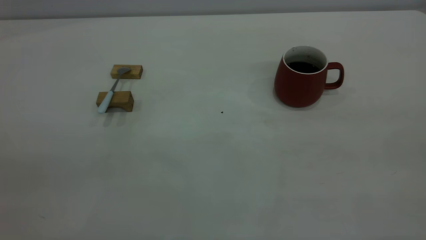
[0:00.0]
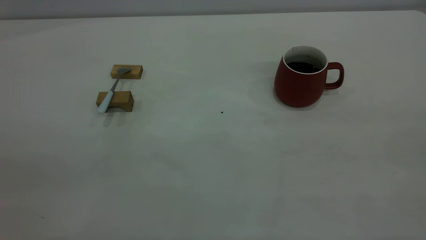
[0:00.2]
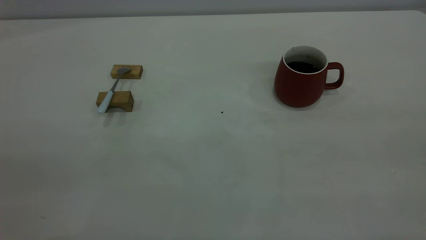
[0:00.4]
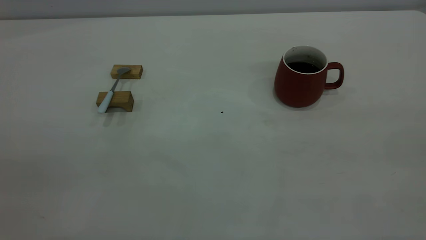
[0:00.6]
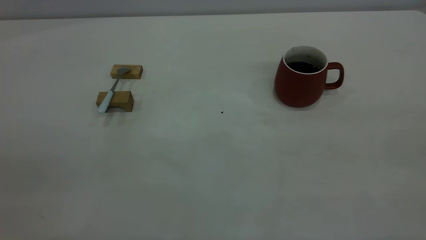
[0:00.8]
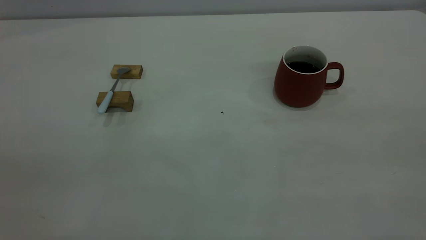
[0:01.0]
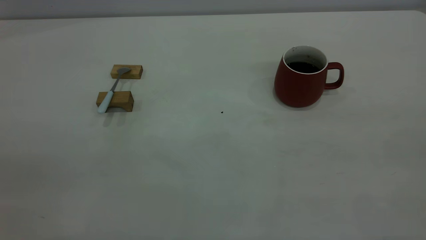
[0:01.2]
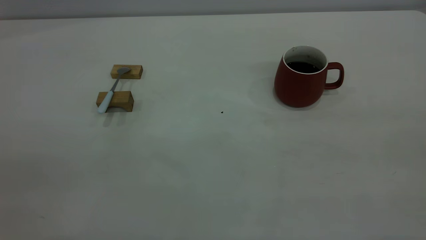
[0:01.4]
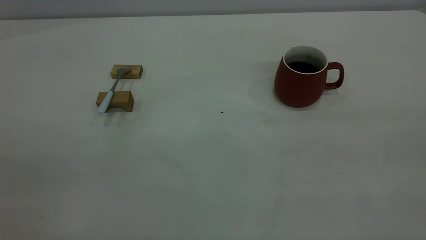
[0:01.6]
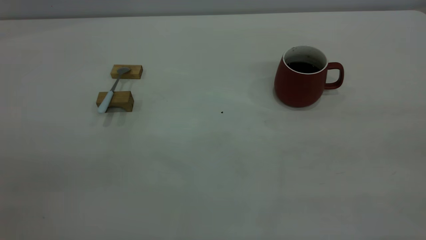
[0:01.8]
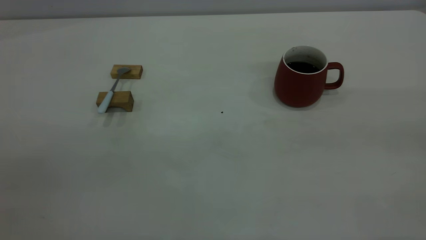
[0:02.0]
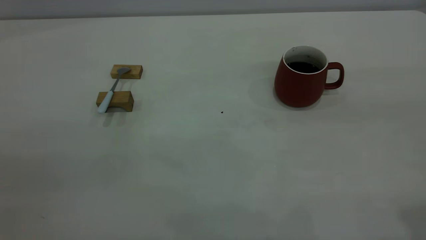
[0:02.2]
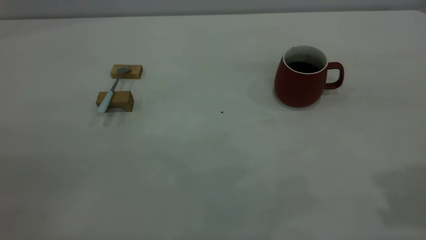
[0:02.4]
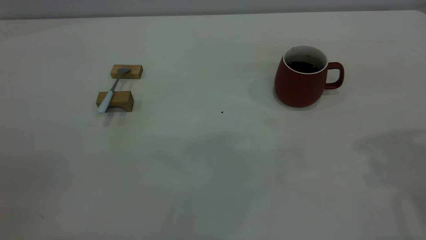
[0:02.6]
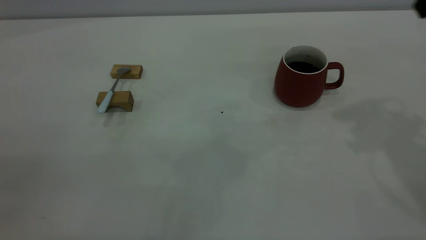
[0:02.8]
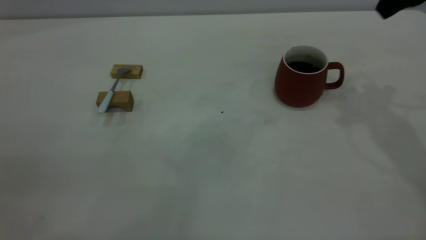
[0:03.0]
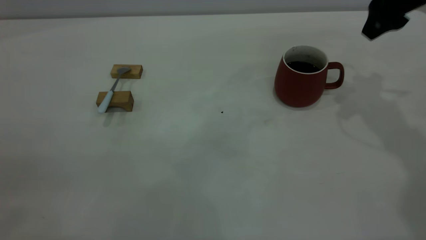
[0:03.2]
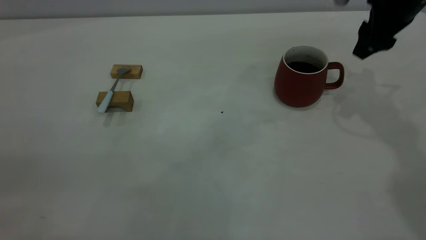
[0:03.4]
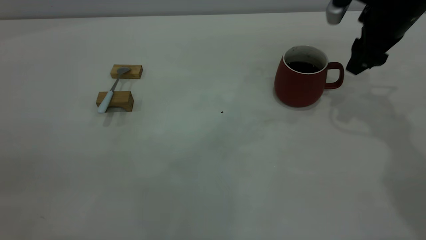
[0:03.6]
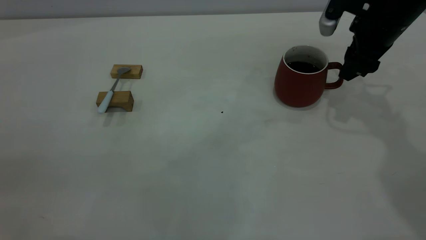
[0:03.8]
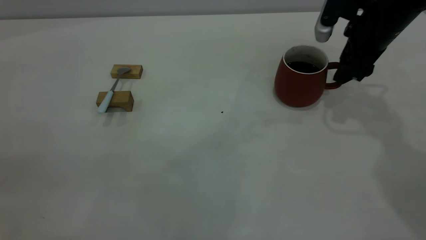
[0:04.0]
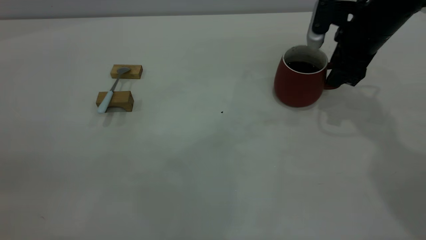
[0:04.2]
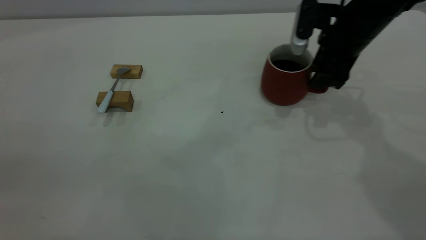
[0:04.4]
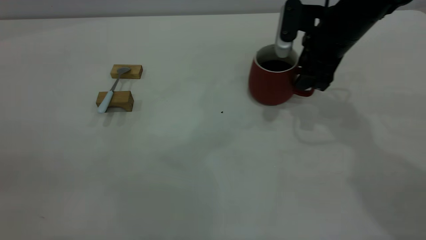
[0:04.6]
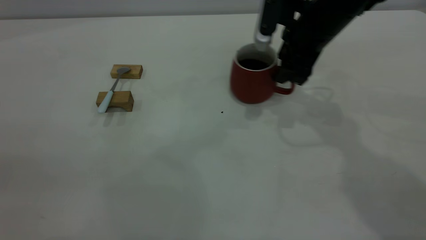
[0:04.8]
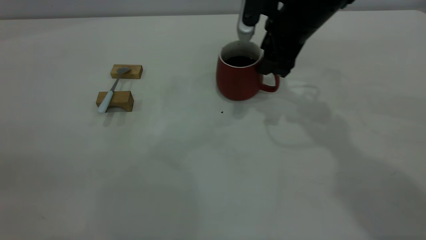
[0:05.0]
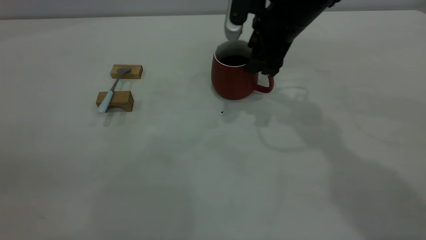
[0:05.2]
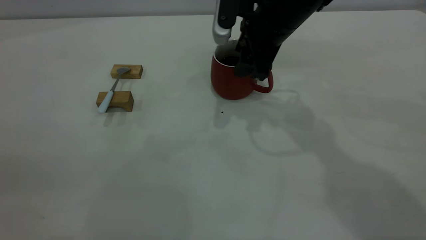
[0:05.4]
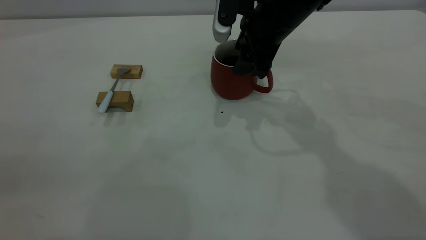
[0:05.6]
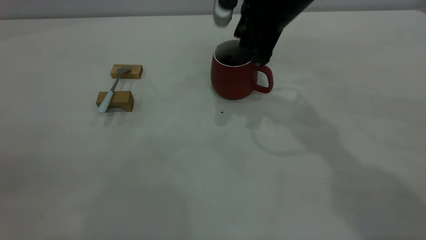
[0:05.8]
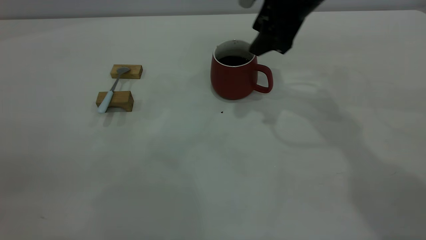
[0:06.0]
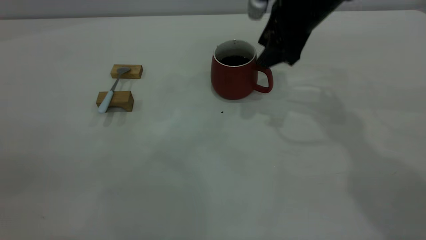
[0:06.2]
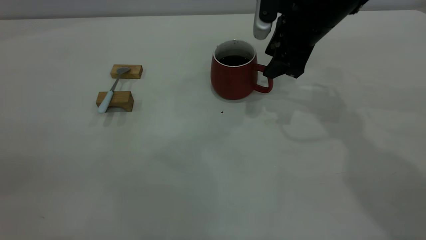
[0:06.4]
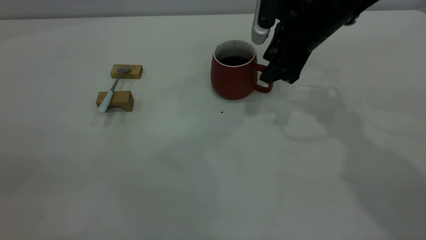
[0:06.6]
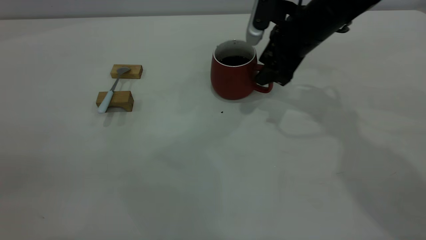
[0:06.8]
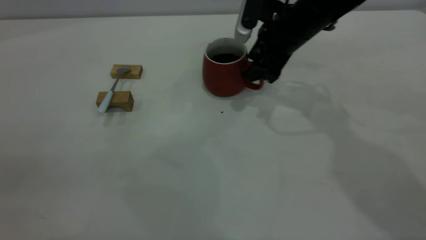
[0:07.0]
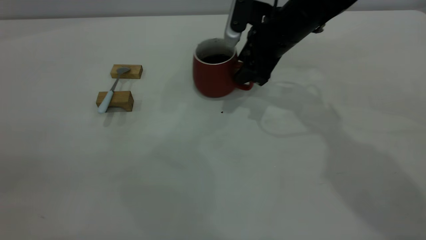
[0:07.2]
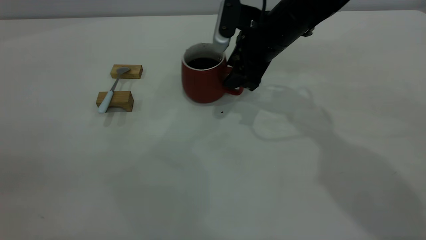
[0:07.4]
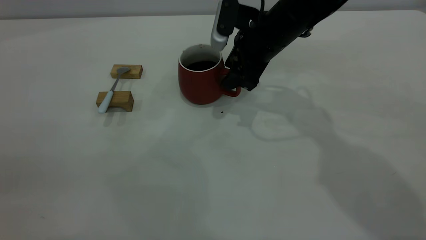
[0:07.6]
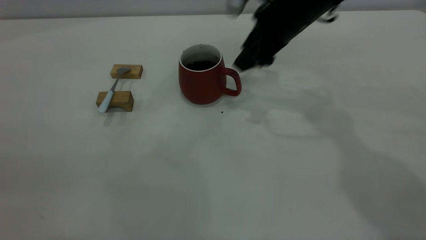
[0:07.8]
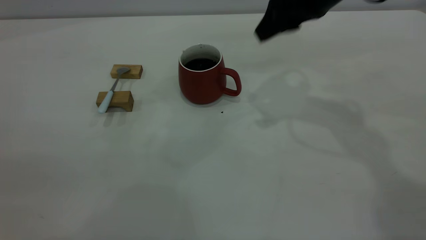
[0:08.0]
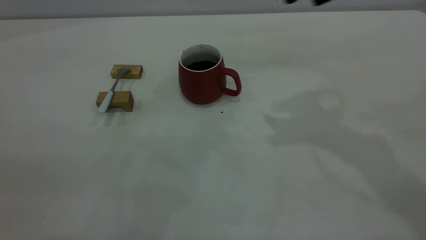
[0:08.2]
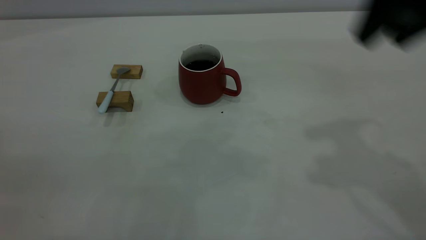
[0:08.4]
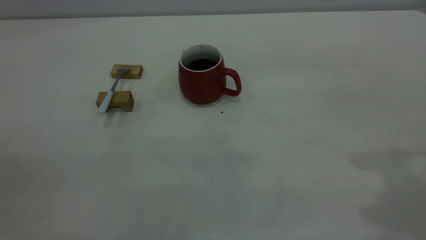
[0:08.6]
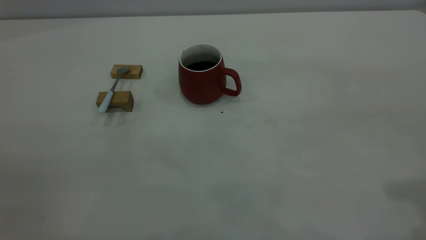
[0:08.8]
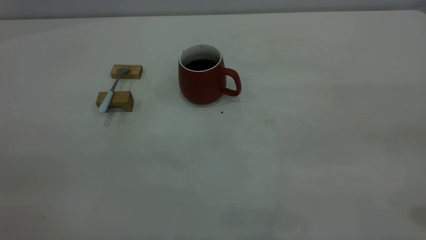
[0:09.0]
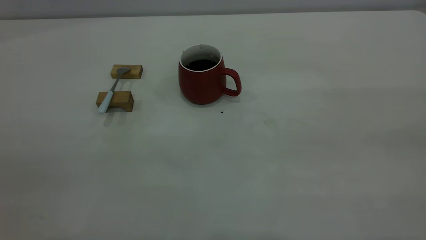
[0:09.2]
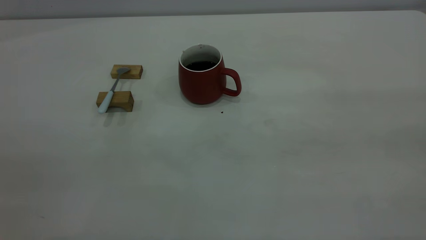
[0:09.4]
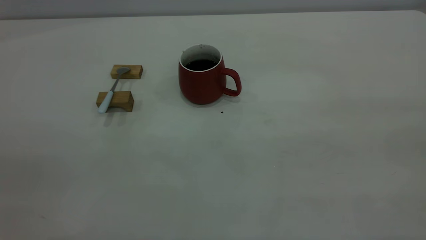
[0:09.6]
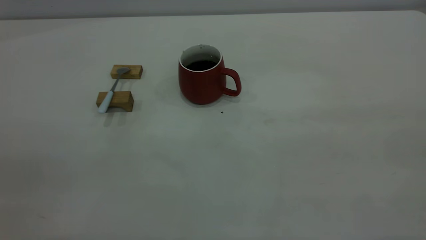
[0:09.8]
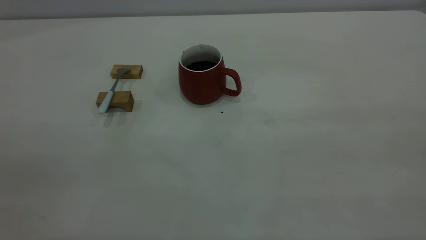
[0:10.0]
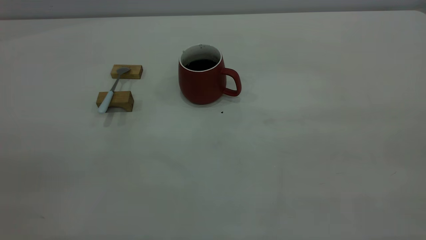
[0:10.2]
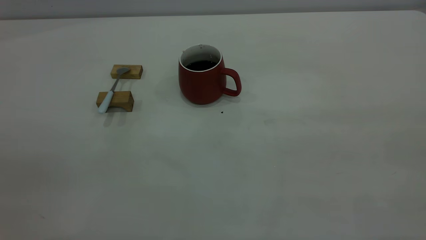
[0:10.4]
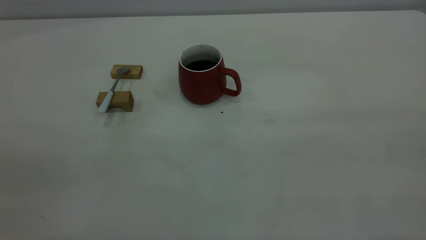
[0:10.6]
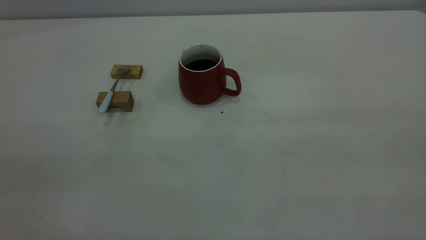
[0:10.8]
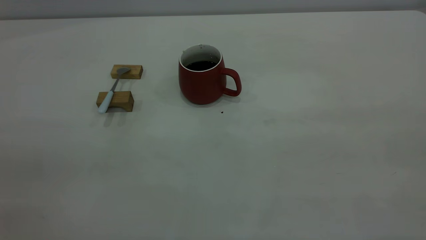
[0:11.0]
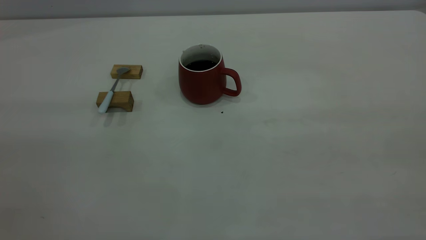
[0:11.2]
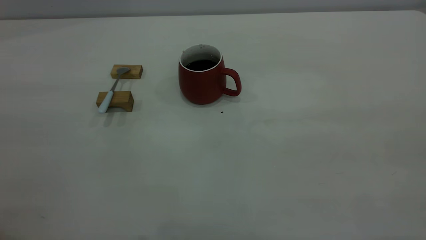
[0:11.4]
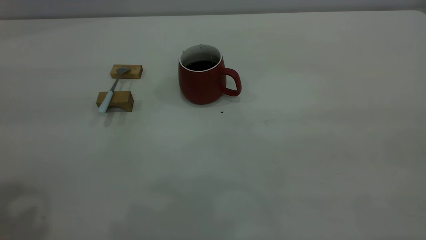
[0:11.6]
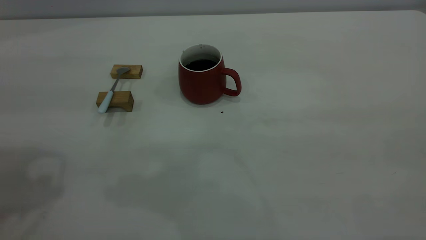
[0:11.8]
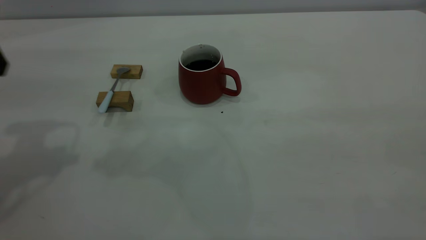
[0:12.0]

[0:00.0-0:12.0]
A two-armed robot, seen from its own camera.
Step, 0:00.0 to 0:07.8: Move the cup with coffee to the center of view.
0:00.0 to 0:01.6: Neither gripper changes place.
0:03.0 to 0:04.4: The right gripper goes some 15 cm downward and to the left, and closes up.
0:04.4 to 0:06.0: The right gripper shifts about 10 cm to the left and upward.
0:06.0 to 0:07.6: The right gripper goes approximately 5 cm downward.
0:07.6 to 0:09.0: The right gripper travels backward, upward and to the right by approximately 40 cm.

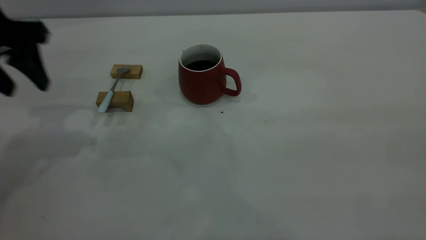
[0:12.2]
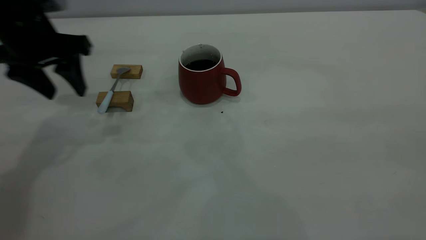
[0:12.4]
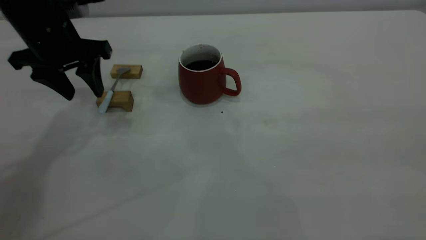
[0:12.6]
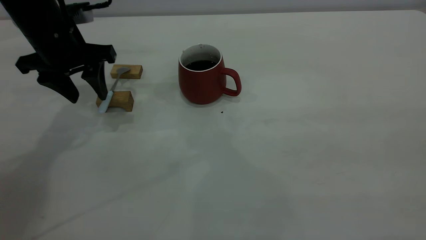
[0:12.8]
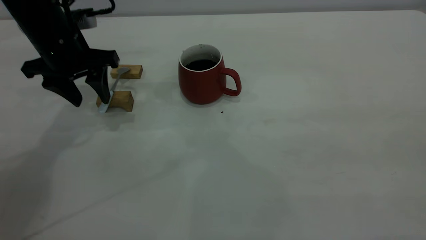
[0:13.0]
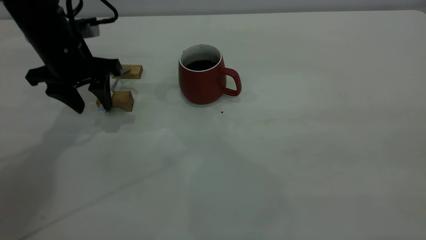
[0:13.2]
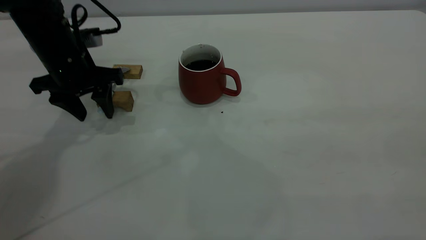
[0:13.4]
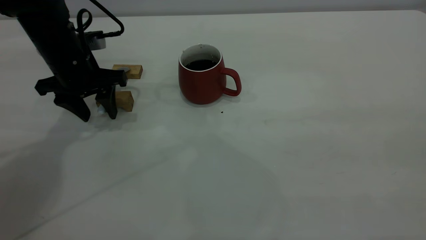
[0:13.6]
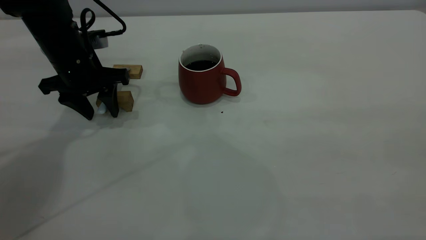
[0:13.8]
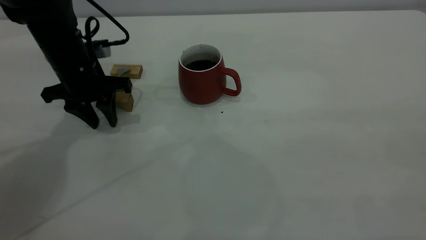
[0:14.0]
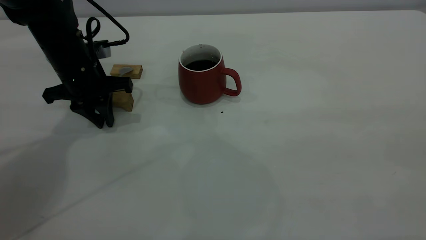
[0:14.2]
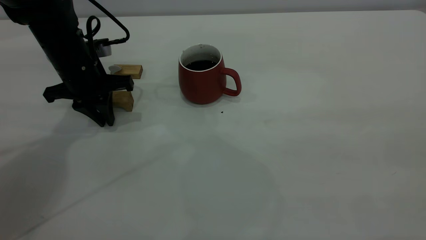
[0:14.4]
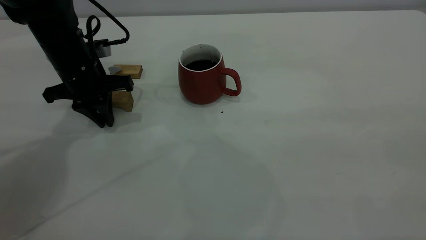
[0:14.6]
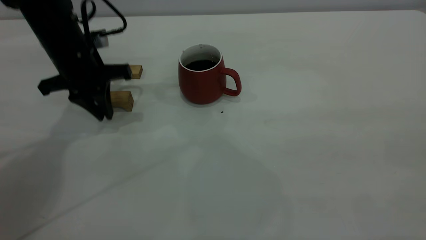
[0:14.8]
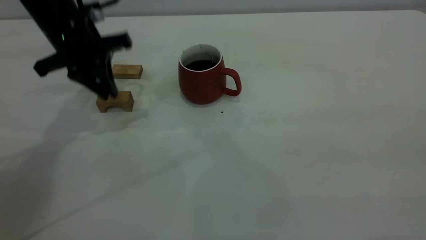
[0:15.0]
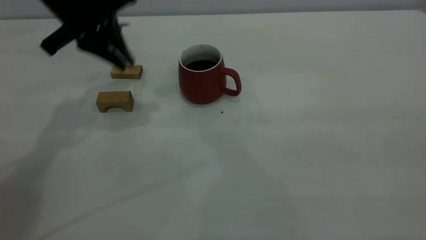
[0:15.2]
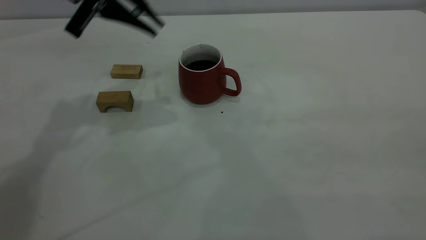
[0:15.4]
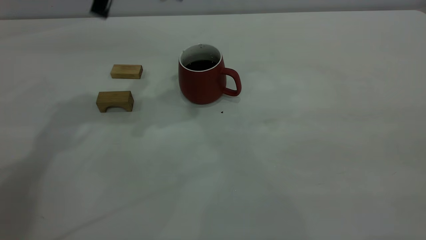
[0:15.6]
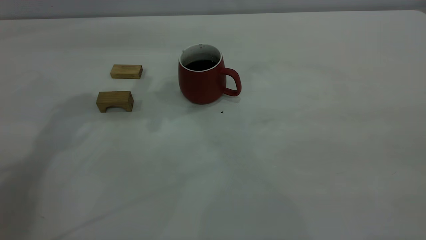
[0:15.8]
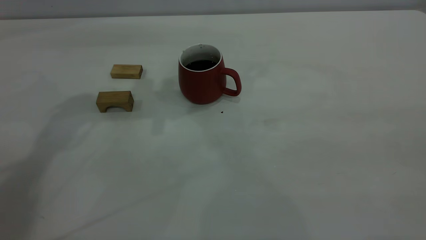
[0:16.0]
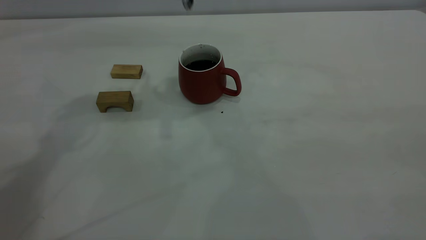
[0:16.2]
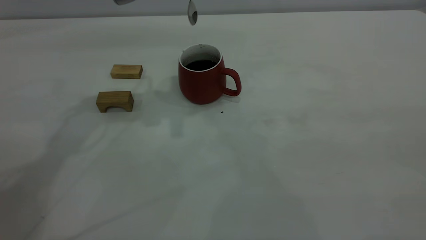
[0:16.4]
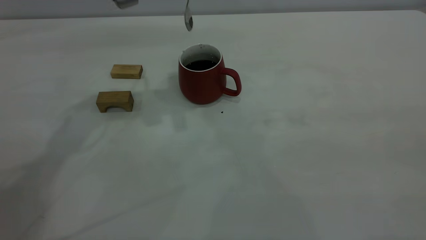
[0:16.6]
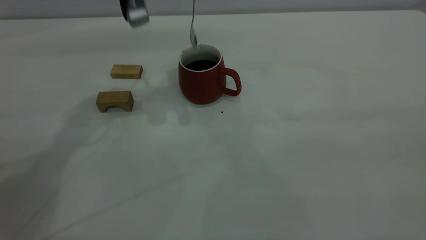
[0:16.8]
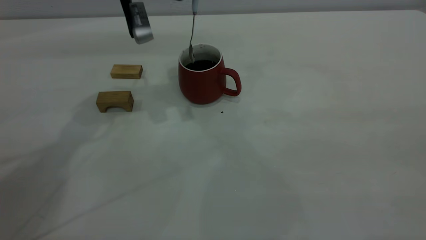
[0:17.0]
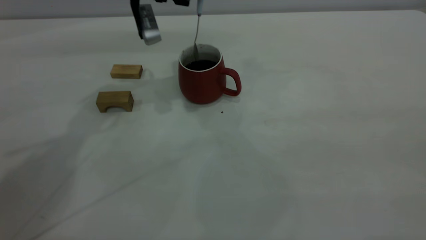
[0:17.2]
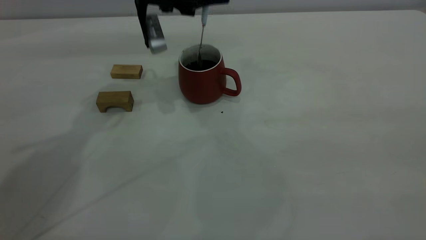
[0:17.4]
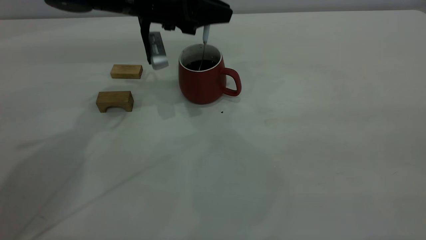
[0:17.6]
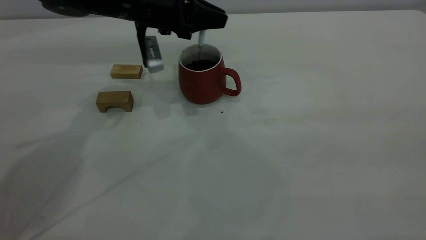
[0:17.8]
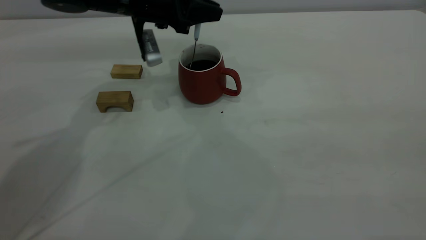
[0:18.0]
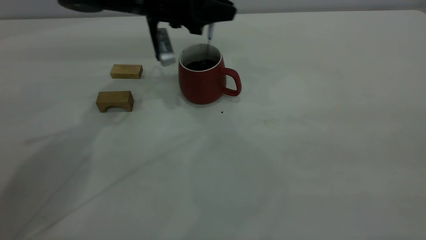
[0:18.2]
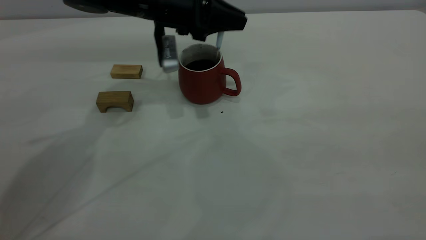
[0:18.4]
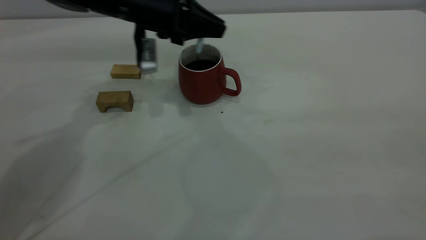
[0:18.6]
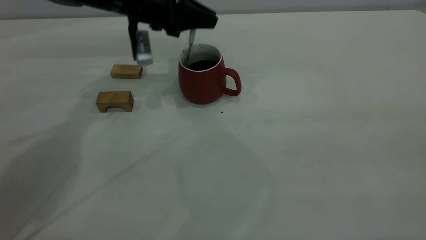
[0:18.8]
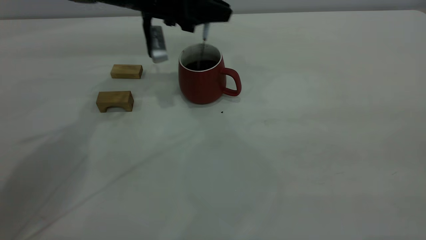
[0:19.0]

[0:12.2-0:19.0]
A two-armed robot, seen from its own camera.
Step, 0:12.2 to 0:15.0: Pick up the spoon.
0:12.2 to 0:13.6: The left gripper moves downward and forward, some 15 cm.
0:13.6 to 0:15.0: The left gripper heads upward, covering roughly 5 cm, and closes its fingers.
0:15.0 to 0:16.2: The left gripper moves upward and to the right, about 15 cm.
0:16.2 to 0:17.6: The left gripper heads downward, covering about 15 cm.
0:17.6 to 0:19.0: The grippers make only small movements.
